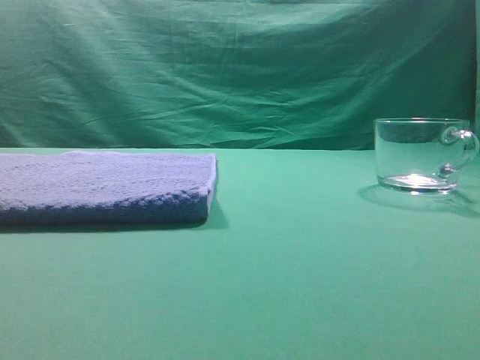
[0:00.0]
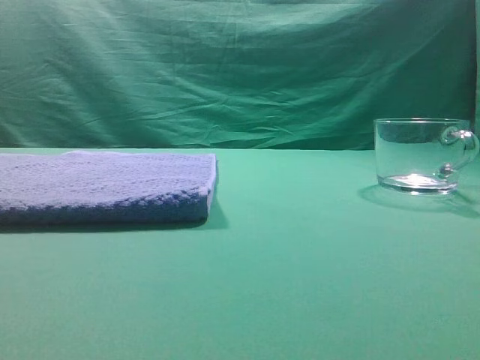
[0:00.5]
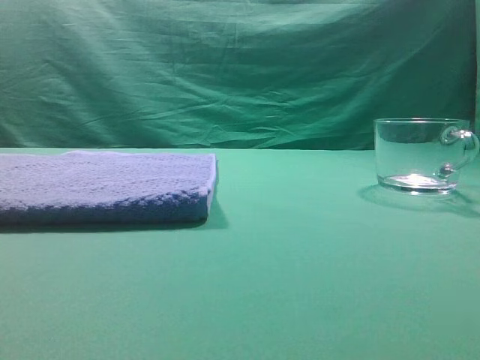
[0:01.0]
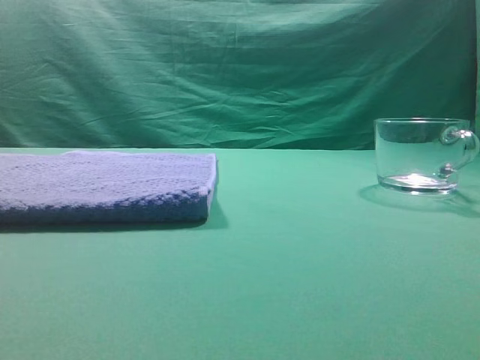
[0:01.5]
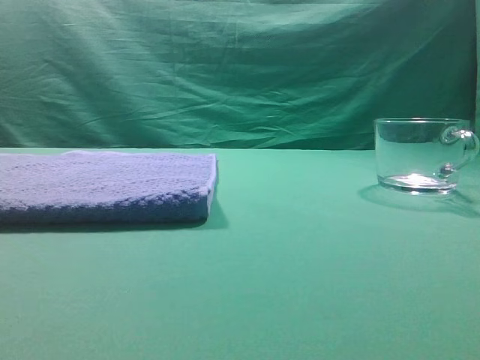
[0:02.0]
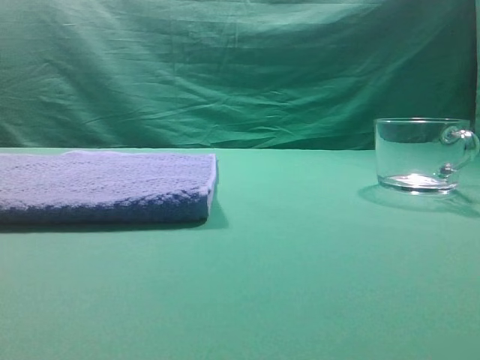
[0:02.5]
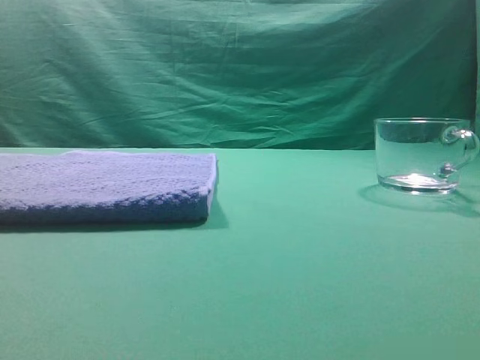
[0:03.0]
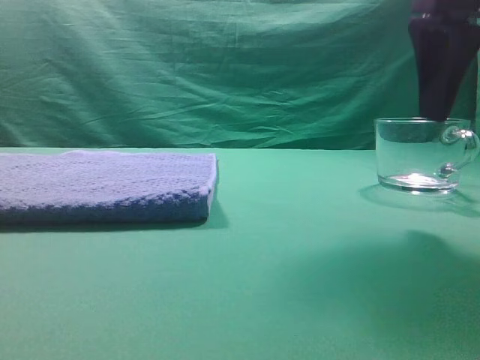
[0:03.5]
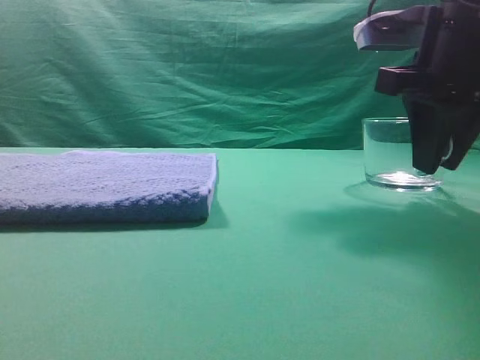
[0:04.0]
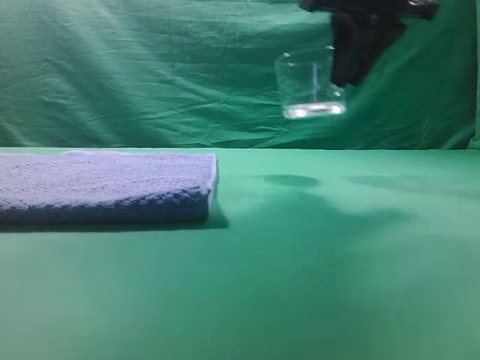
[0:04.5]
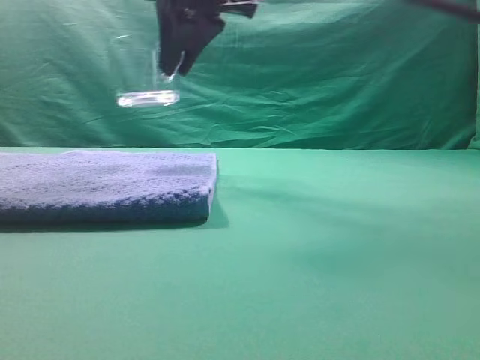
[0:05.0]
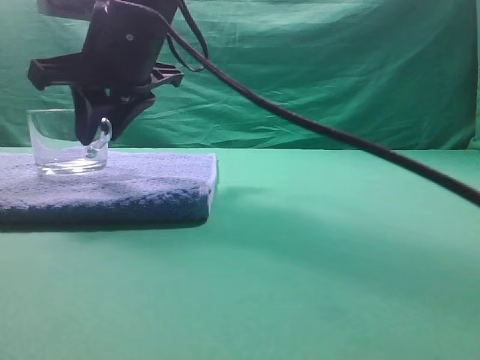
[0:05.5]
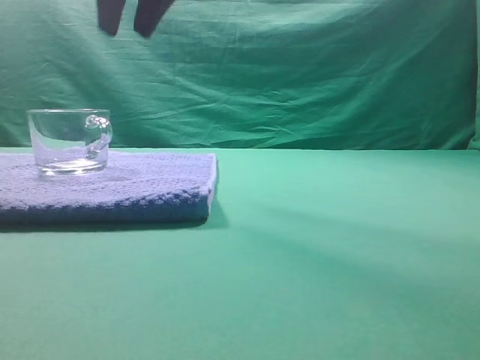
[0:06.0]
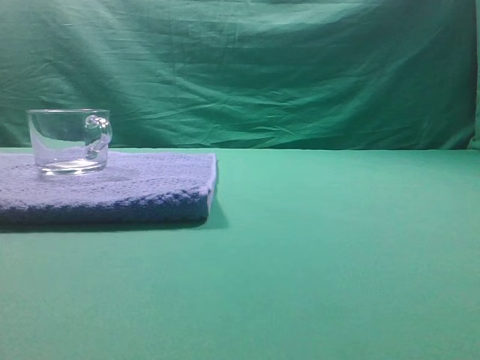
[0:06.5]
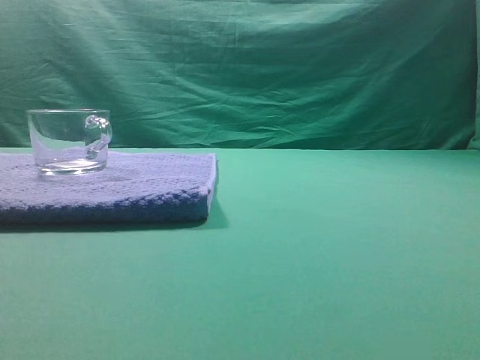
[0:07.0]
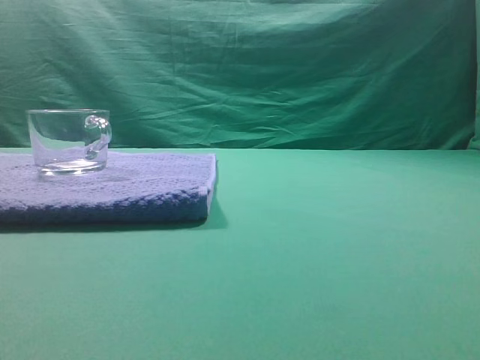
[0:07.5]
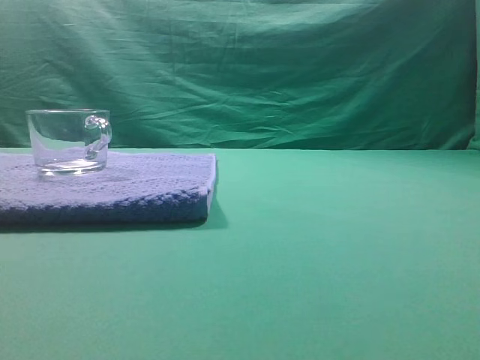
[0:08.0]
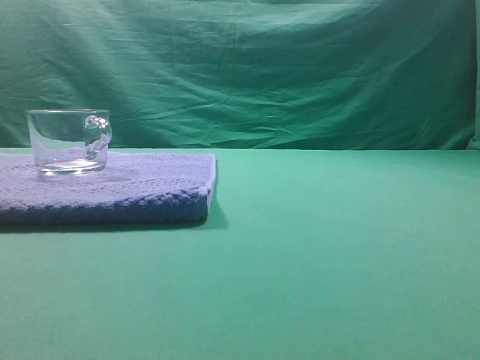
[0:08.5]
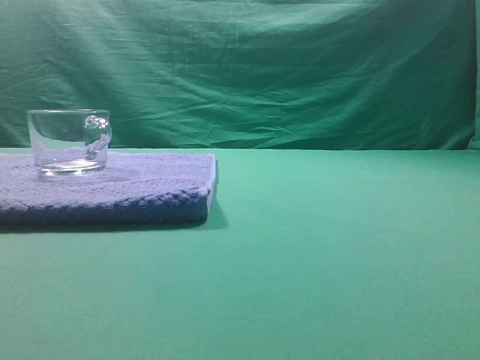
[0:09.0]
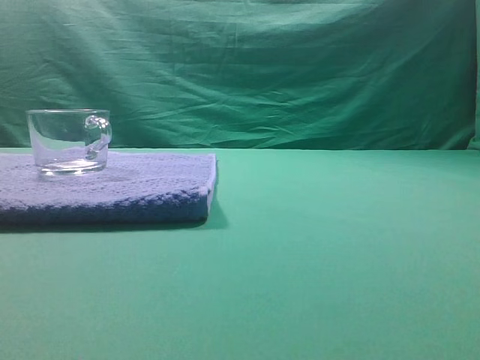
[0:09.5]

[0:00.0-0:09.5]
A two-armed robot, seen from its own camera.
Task of the whole recording: grasp the transparent glass cup and place it within the blue towel.
Step, 0:00.0 to 0:04.0: Grasp the transparent glass cup.
Step, 0:04.5 to 0:05.5: Place the glass cup on the blue zone.
